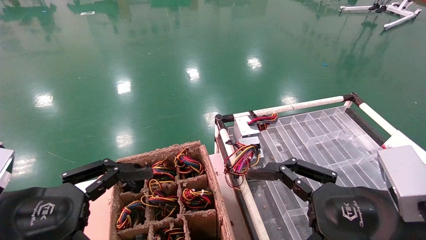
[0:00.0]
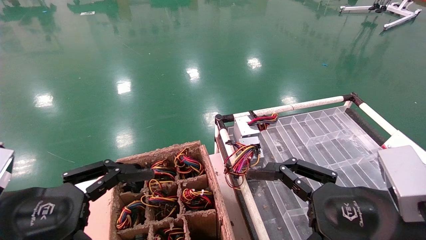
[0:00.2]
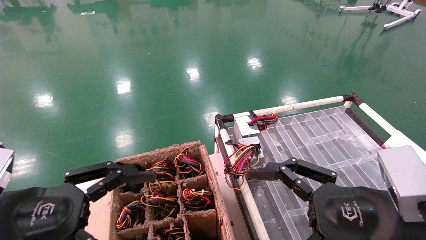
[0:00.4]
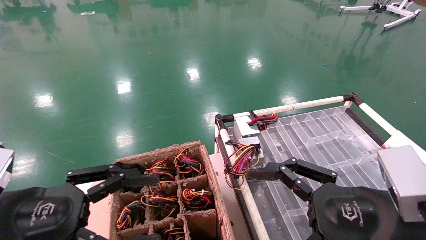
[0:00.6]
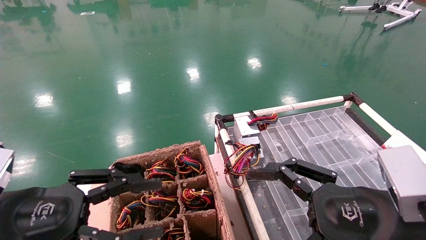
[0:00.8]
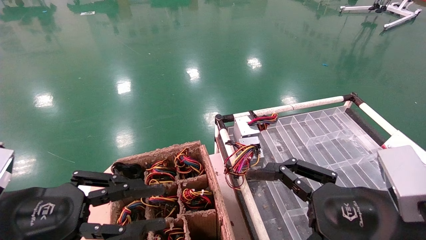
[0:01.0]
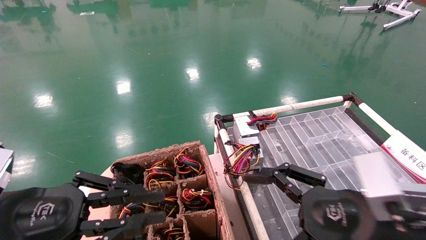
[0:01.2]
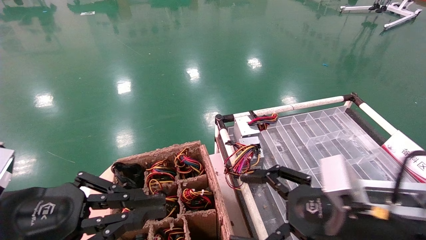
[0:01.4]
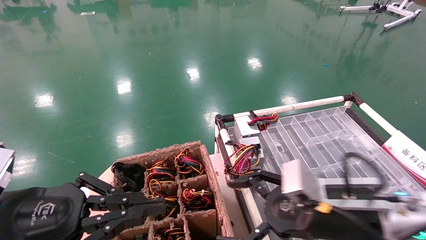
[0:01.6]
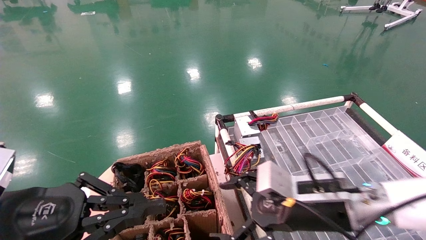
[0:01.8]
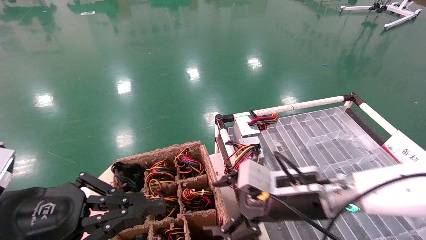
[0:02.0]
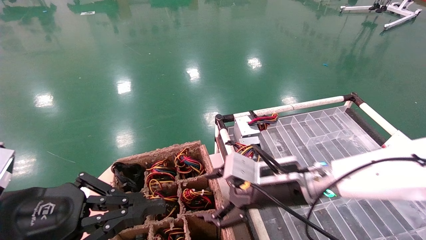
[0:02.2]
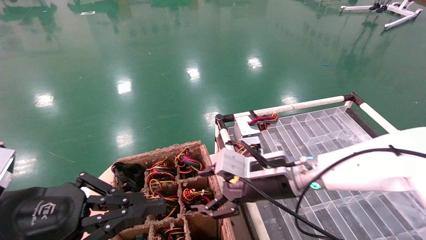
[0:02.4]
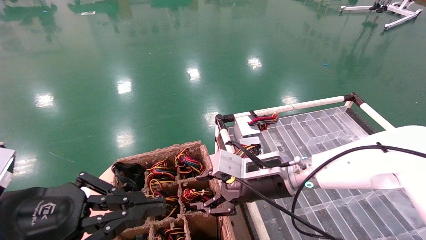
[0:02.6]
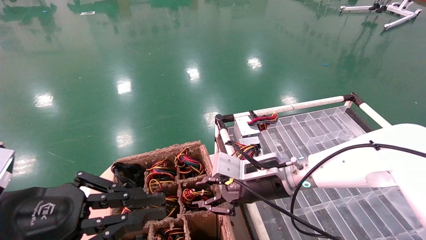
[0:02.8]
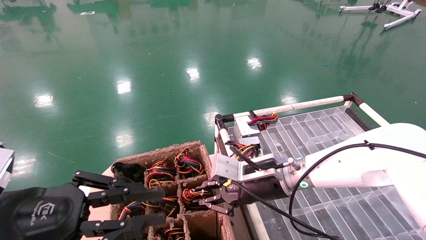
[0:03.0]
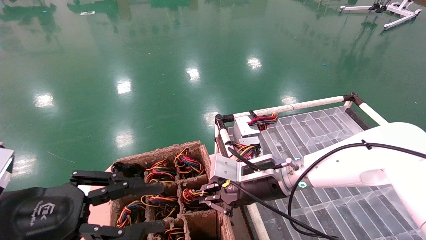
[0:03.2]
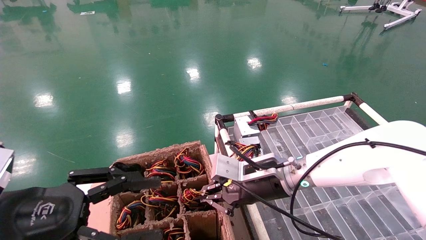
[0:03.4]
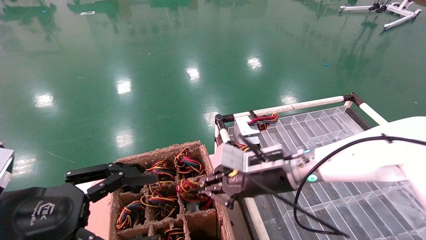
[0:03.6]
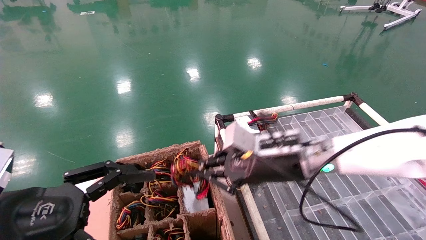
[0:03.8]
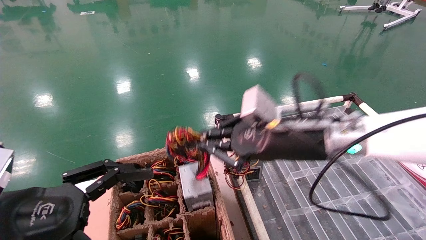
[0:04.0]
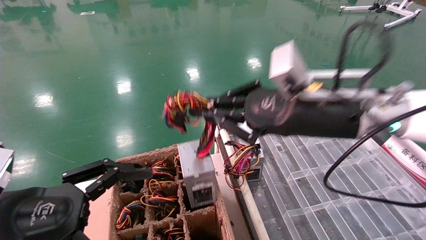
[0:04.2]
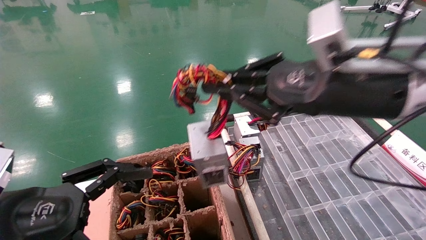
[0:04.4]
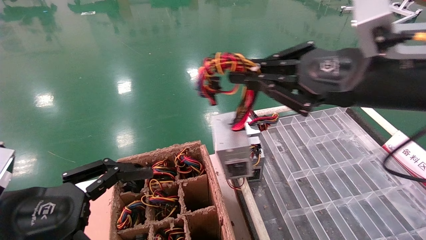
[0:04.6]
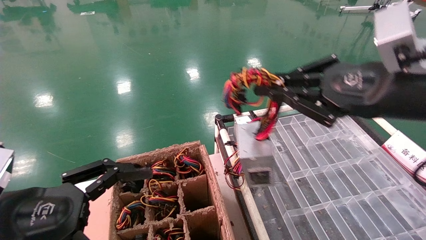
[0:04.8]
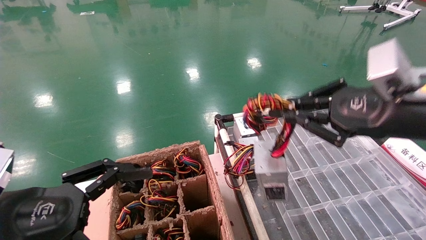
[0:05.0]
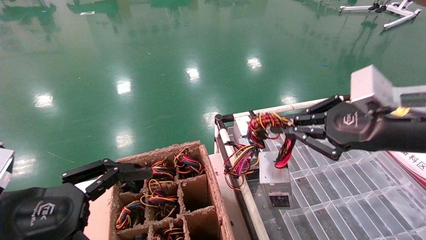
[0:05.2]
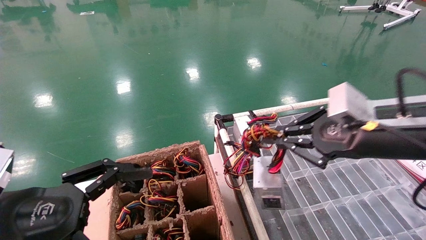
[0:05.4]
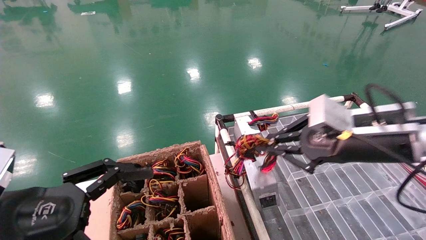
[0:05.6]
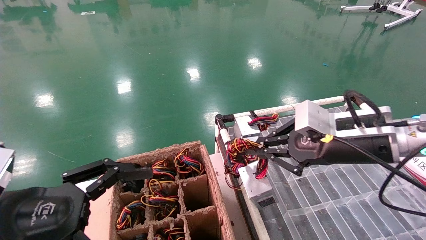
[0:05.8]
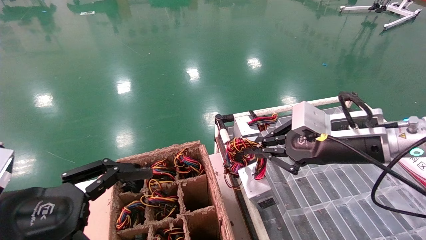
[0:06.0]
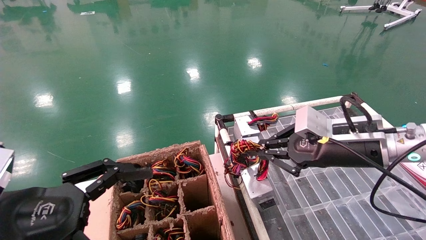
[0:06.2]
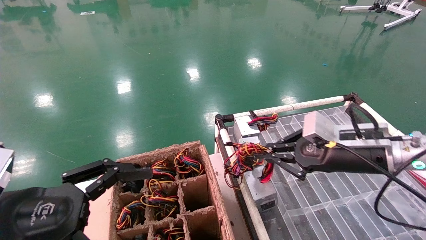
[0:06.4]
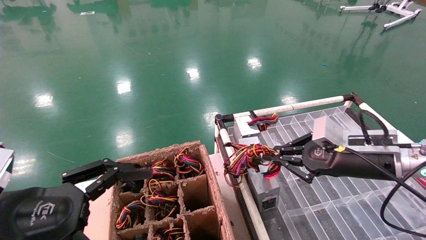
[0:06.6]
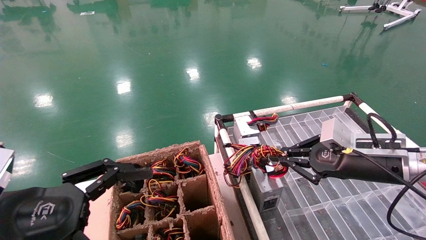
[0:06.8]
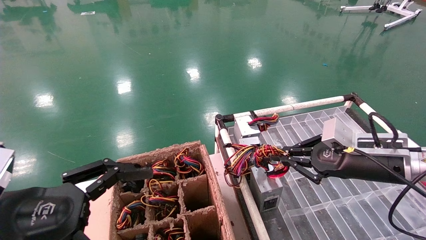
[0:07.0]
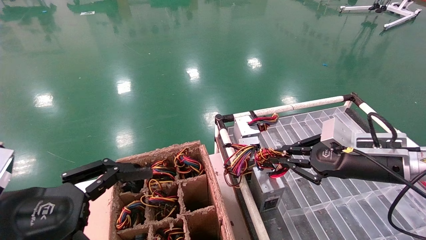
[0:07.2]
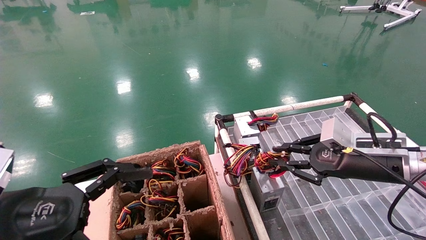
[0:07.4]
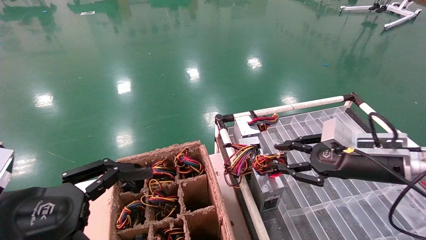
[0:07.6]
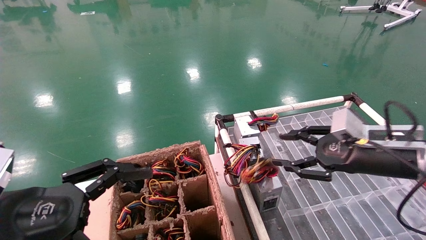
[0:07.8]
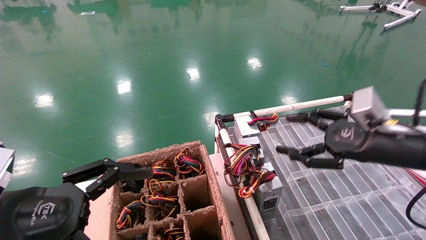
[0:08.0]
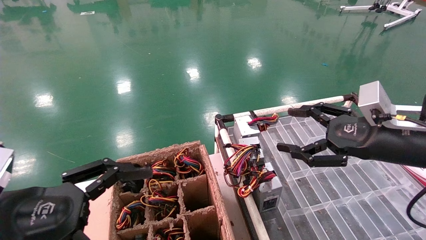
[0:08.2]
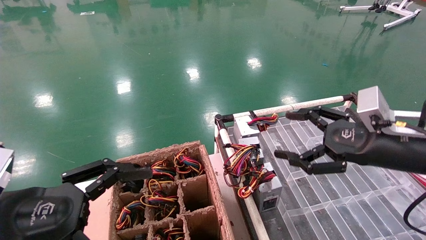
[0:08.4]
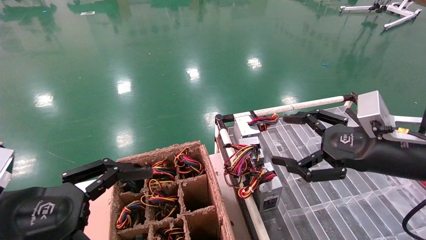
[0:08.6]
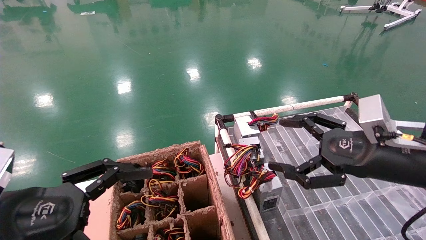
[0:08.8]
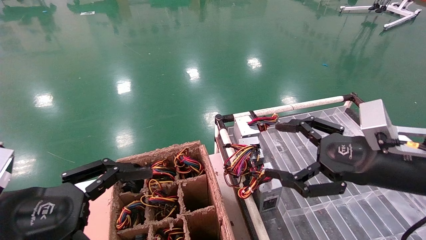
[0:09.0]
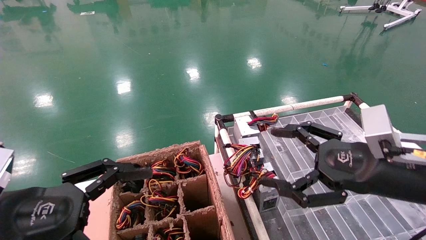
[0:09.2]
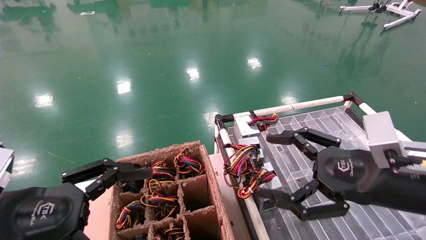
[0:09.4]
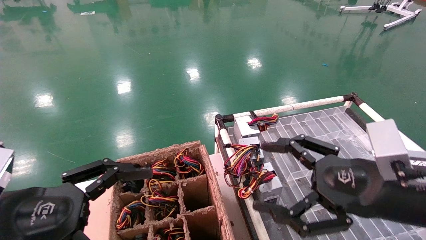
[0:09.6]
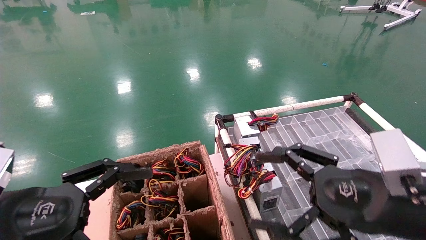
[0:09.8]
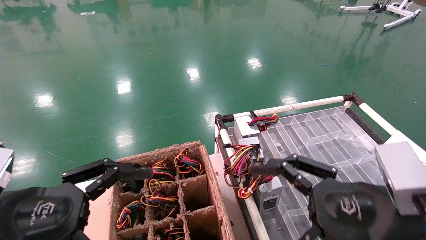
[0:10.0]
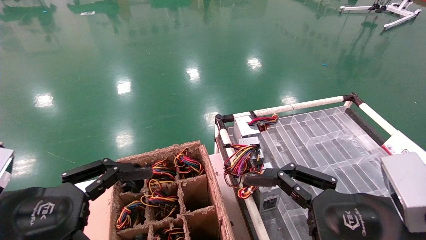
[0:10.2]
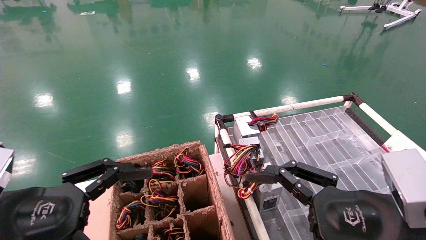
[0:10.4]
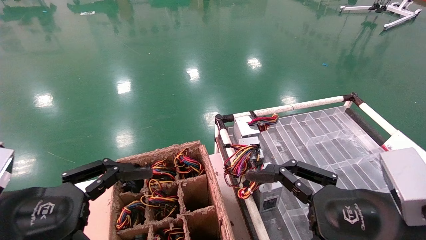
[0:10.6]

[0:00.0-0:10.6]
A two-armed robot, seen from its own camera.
Step, 0:00.8 to 0:03.2: Grab and lift the power supply from the large box.
Step, 0:03.4 to 0:07.2: Place the power supply on the operating table.
0:00.0 to 0:01.6: The left gripper closes its fingers, while the right gripper moves forward, some 10 cm.
0:01.6 to 0:03.0: The right gripper shifts roughly 15 cm forward and to the left, and closes.
0:03.0 to 0:04.6: The right gripper shifts roughly 25 cm upward, backward and to the right. Meanwhile the left gripper opens up.
0:04.6 to 0:06.0: The right gripper moves downward and forward, approximately 10 cm.
0:06.0 to 0:07.6: The right gripper heads to the right, covering roughly 5 cm.
0:07.6 to 0:09.0: The right gripper shifts roughly 5 cm backward, and opens.
0:09.0 to 0:10.6: The right gripper is displaced backward and to the left by some 10 cm.

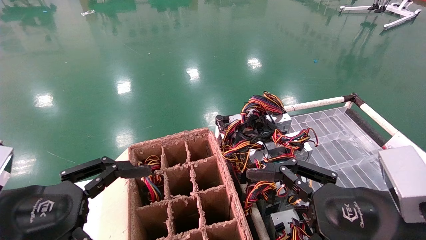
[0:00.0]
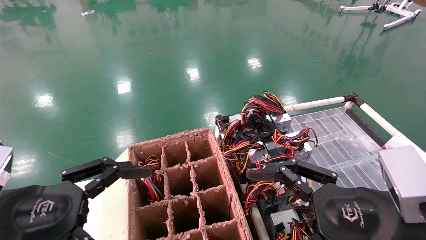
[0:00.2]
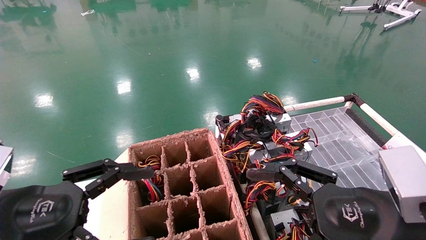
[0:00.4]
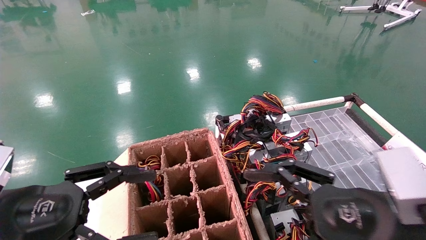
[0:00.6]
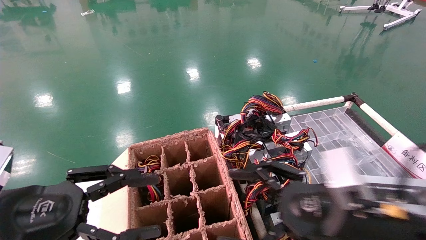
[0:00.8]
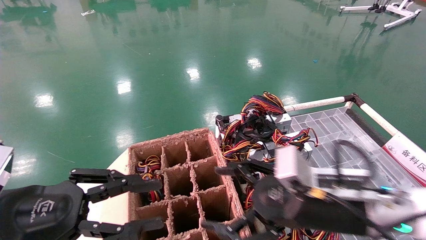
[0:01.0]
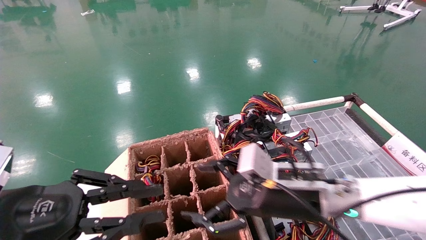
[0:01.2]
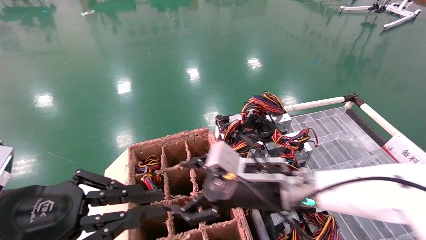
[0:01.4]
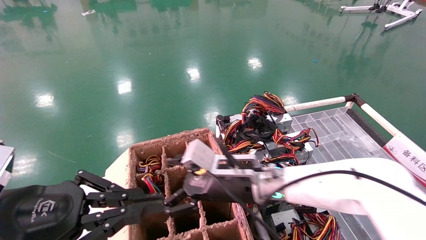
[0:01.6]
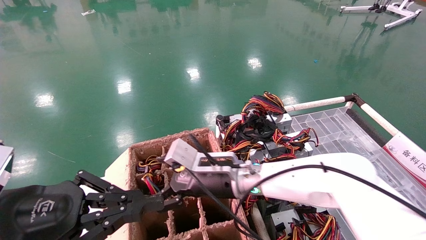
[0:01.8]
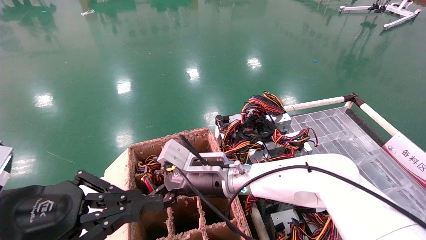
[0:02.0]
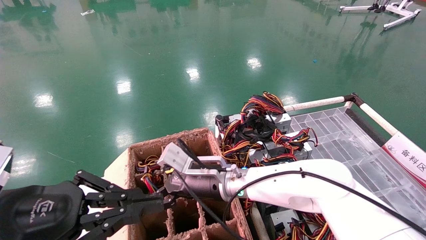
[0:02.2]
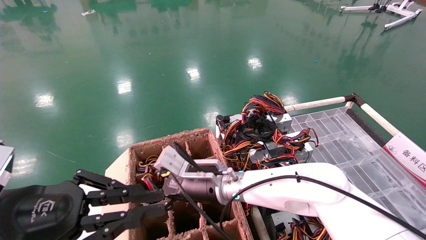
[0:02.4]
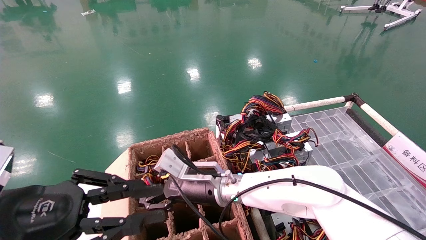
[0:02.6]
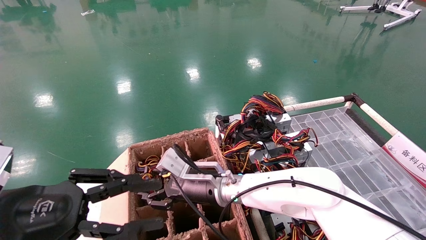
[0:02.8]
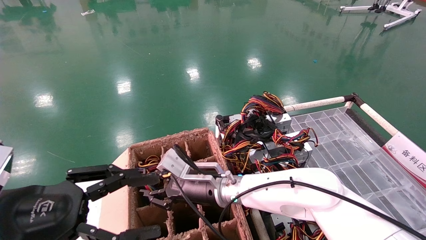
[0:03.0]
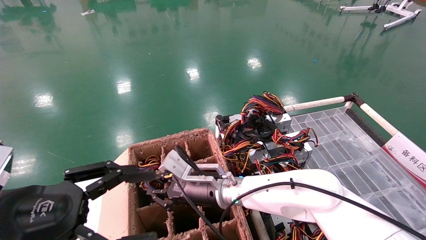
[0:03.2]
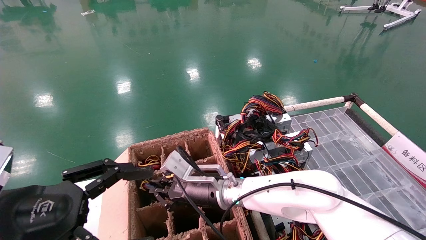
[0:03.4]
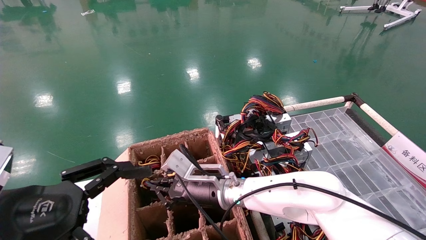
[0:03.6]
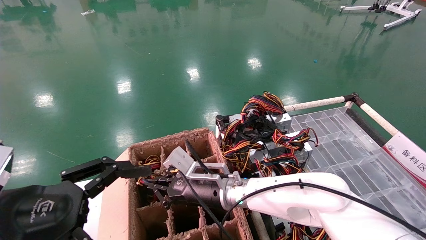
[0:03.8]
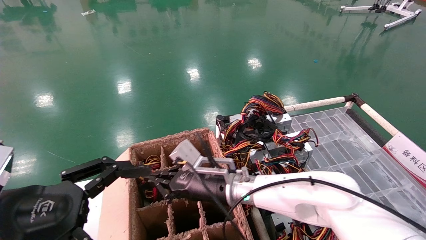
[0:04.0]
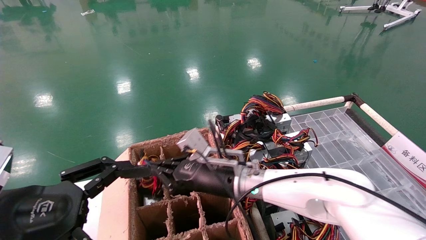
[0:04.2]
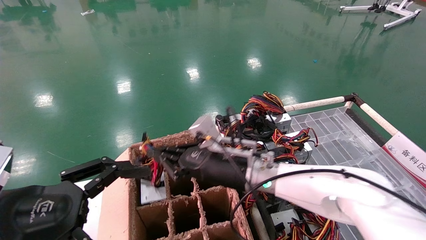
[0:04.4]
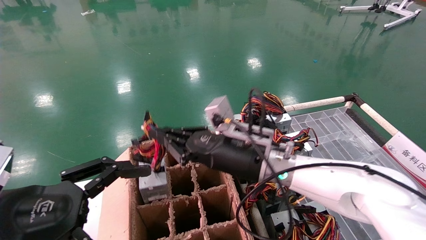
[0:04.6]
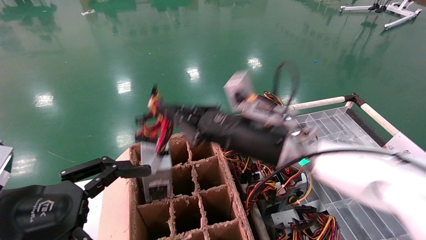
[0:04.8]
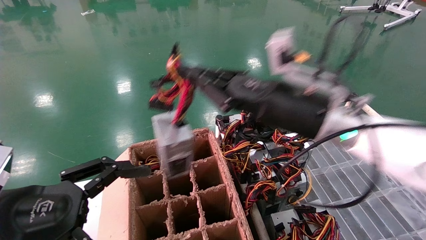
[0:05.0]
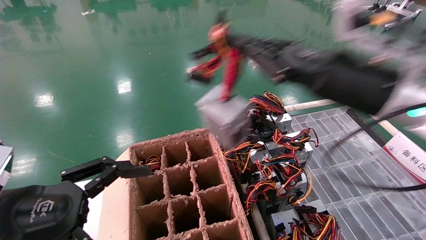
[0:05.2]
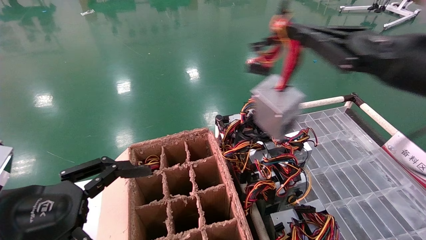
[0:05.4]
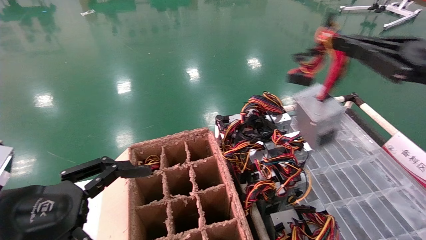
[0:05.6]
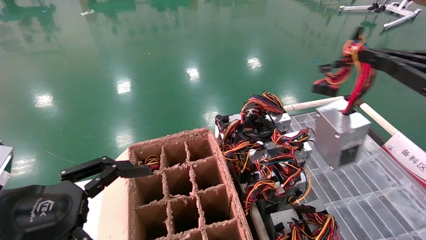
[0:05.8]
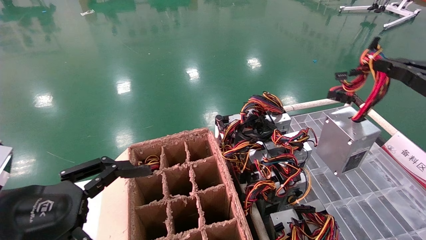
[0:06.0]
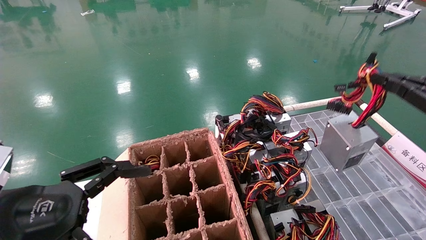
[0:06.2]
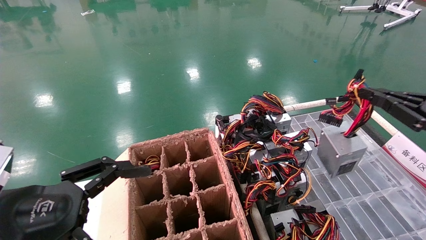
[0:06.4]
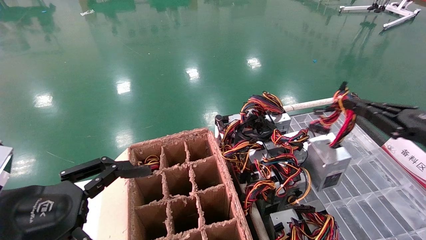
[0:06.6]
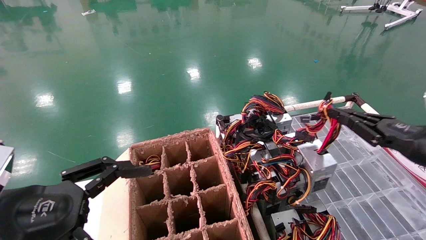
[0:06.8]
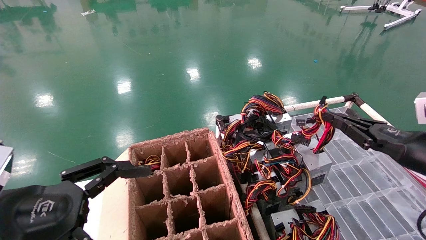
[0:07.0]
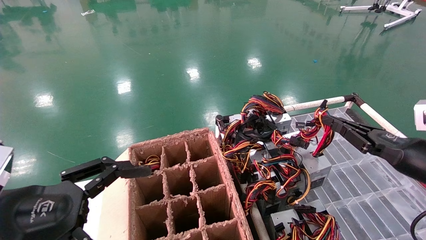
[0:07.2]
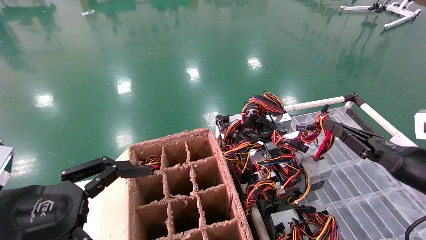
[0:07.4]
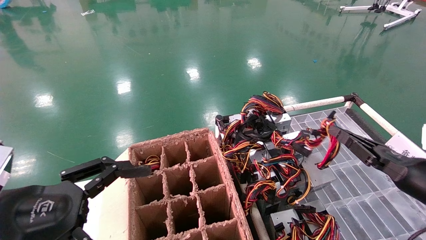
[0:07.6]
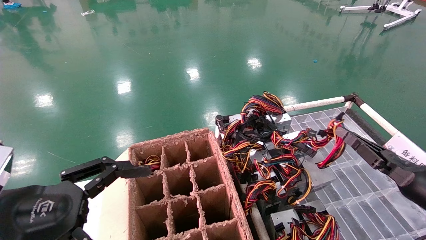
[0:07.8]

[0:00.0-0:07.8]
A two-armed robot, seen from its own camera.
Step, 0:01.8 to 0:03.8: Grab and lift the power supply from the large box.
0:00.0 to 0:01.6: The left gripper closes its fingers. The right gripper shifts some 25 cm to the left and forward.
0:01.6 to 0:03.2: The right gripper goes about 5 cm to the left, and closes; the left gripper opens.
0:03.2 to 0:04.6: The right gripper is displaced upward and to the right by about 10 cm, and closes up. Meanwhile the left gripper opens its fingers.
0:04.6 to 0:06.2: The right gripper moves to the right, approximately 35 cm.
0:06.2 to 0:07.8: The right gripper goes some 15 cm downward and forward.
